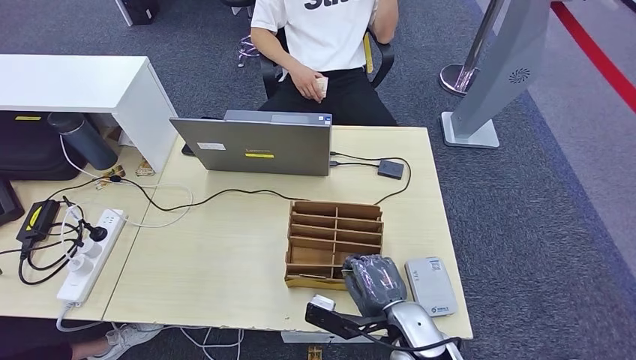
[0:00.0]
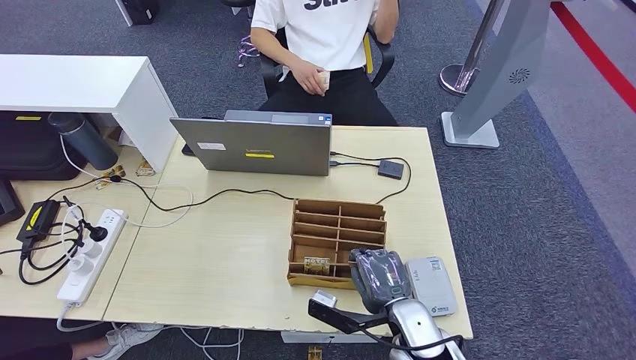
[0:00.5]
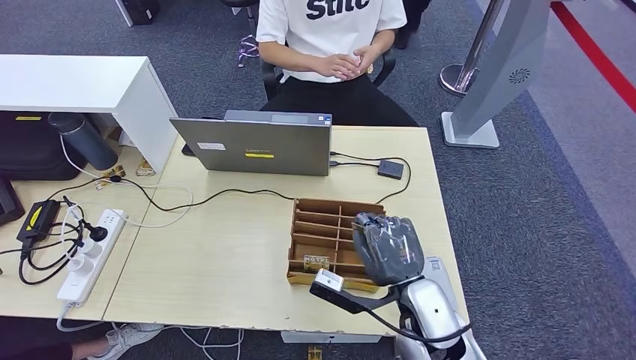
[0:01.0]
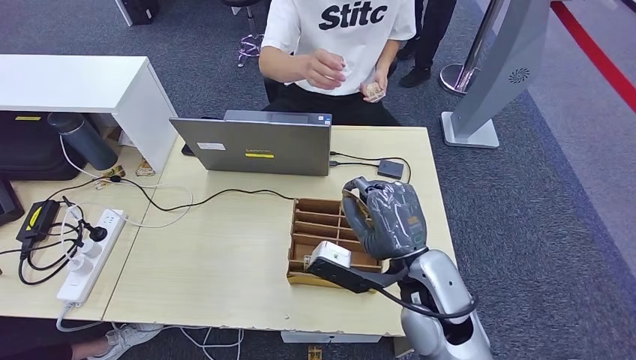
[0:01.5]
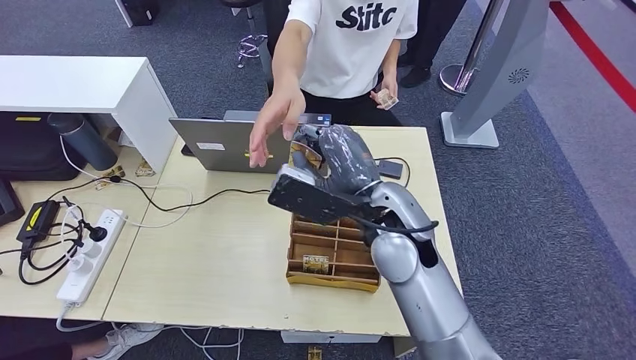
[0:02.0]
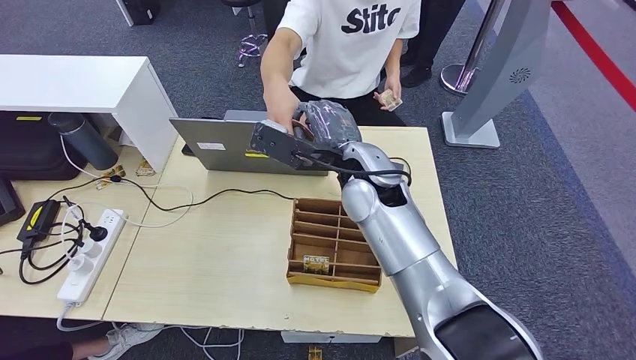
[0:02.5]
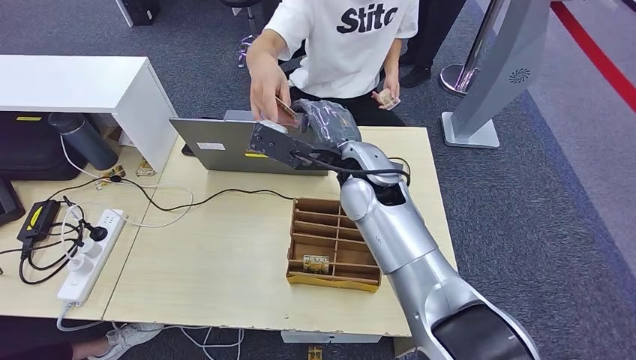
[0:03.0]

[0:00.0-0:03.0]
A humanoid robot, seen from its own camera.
Step, 0:01.0 to 0:03.0: Hand the room key to the person.
0:00.0 to 0:01.5: The right hand goes about 10 cm upward.
0:01.5 to 0:03.0: The right hand heads forward, to the left and upward, covering roughly 20 cm.
